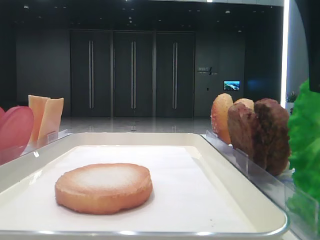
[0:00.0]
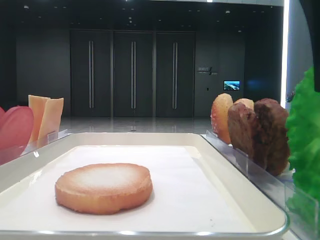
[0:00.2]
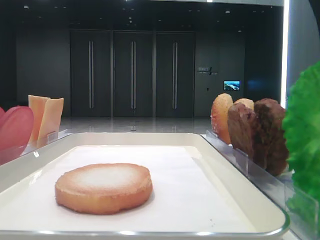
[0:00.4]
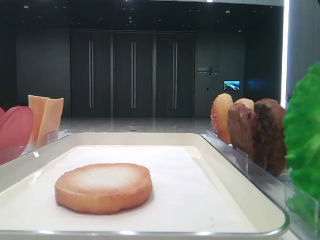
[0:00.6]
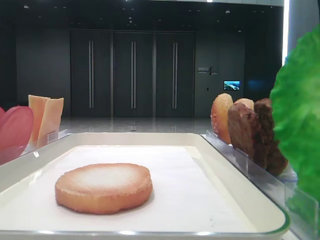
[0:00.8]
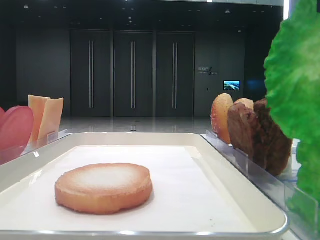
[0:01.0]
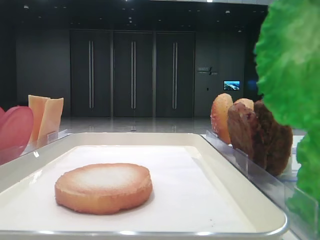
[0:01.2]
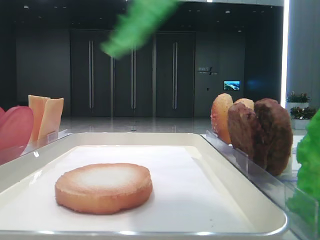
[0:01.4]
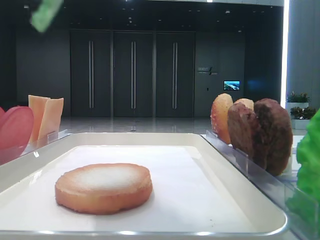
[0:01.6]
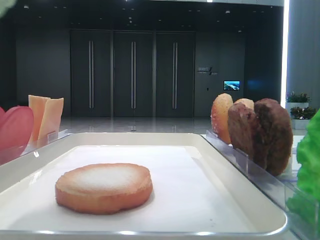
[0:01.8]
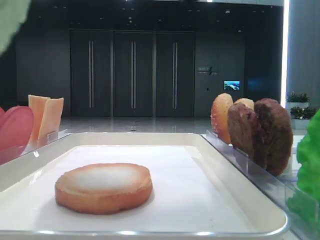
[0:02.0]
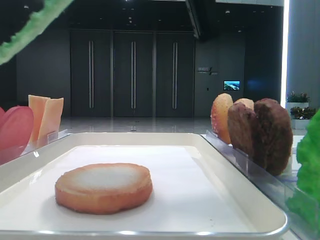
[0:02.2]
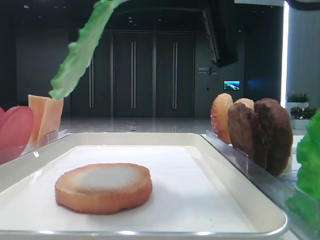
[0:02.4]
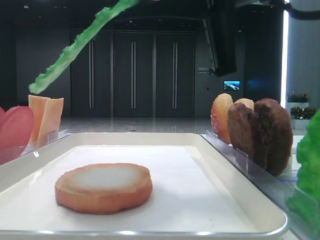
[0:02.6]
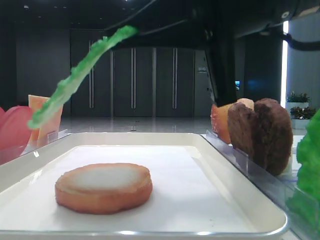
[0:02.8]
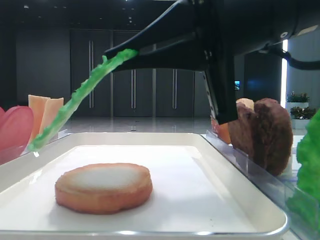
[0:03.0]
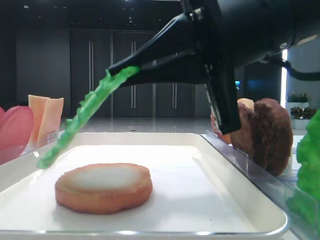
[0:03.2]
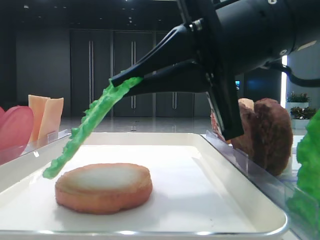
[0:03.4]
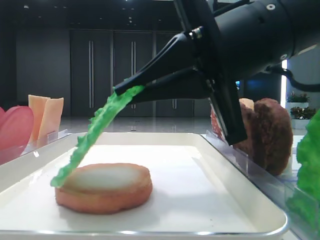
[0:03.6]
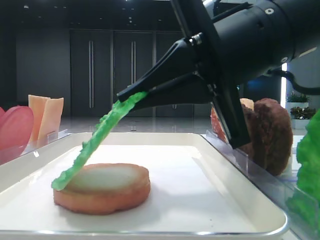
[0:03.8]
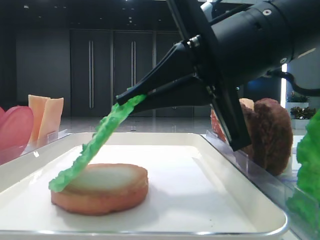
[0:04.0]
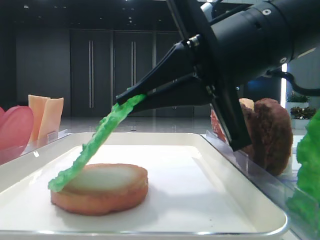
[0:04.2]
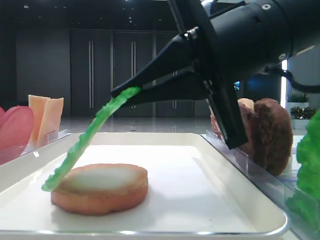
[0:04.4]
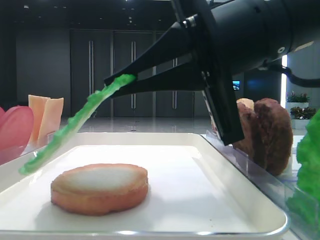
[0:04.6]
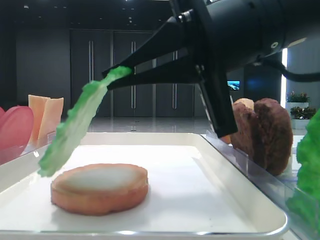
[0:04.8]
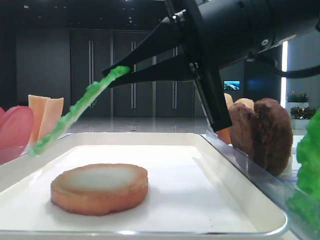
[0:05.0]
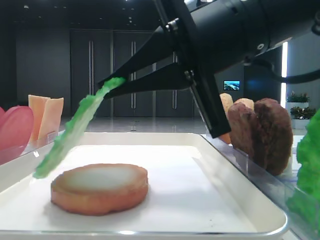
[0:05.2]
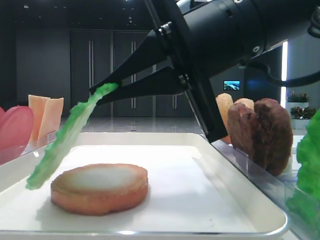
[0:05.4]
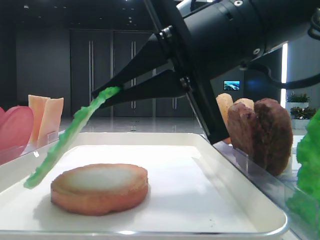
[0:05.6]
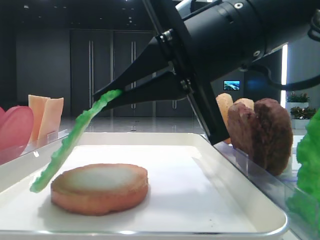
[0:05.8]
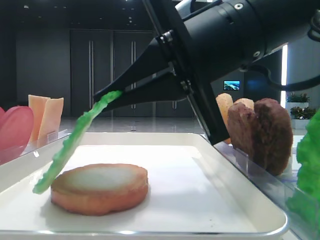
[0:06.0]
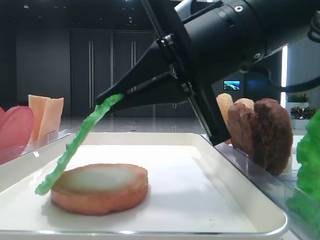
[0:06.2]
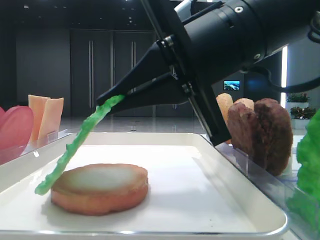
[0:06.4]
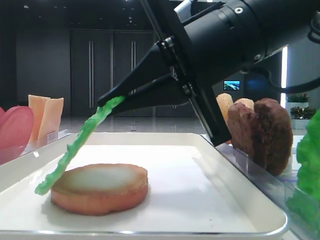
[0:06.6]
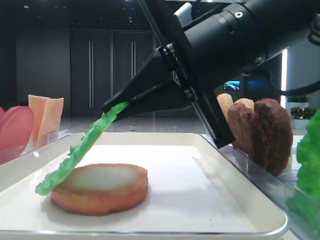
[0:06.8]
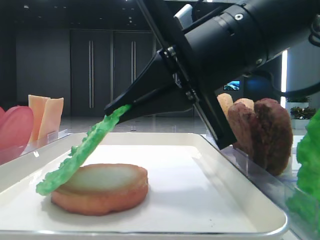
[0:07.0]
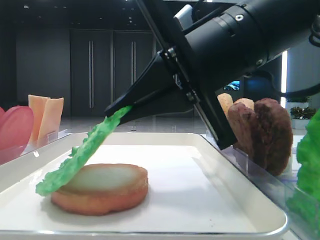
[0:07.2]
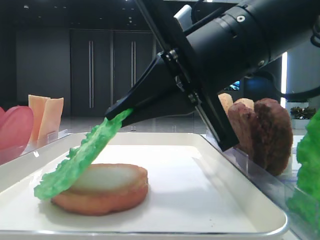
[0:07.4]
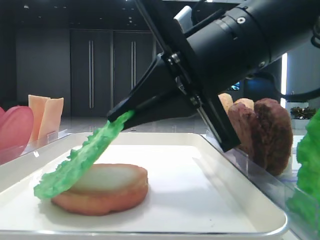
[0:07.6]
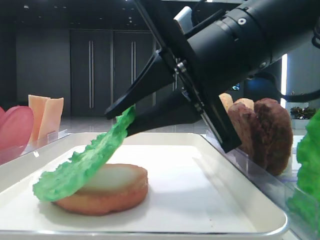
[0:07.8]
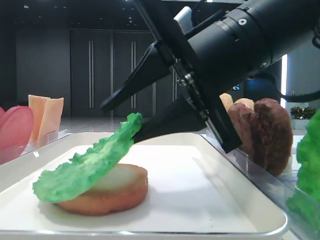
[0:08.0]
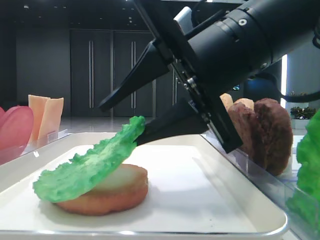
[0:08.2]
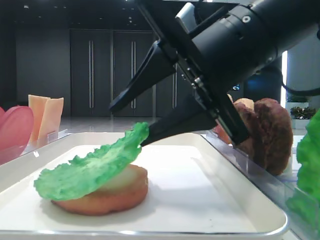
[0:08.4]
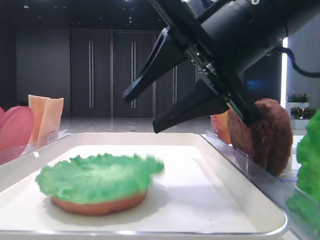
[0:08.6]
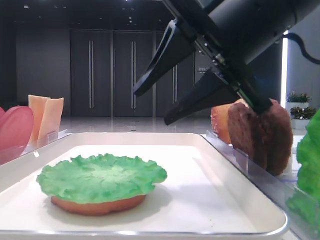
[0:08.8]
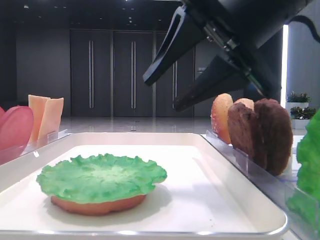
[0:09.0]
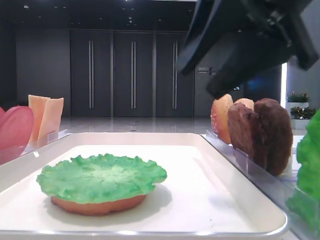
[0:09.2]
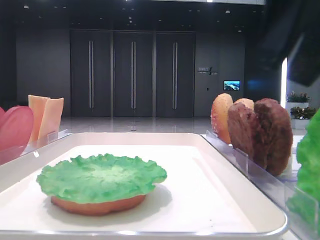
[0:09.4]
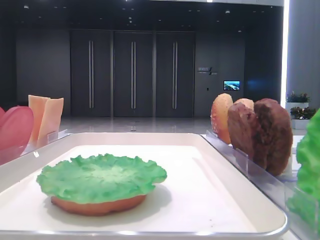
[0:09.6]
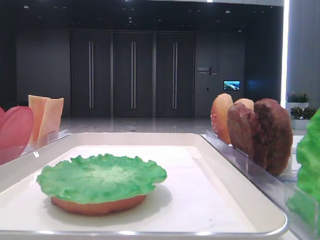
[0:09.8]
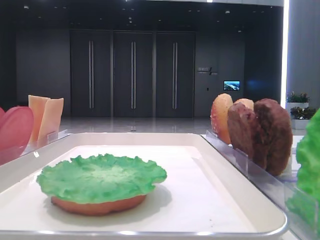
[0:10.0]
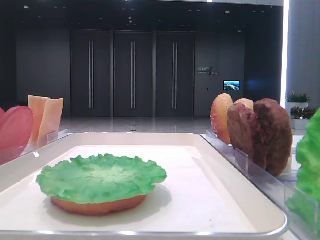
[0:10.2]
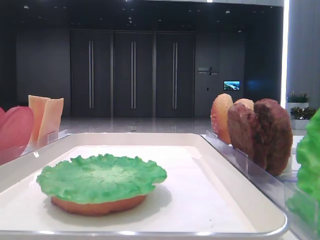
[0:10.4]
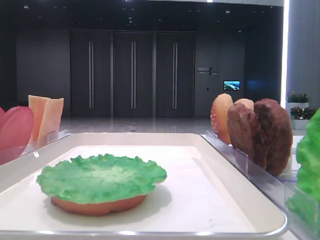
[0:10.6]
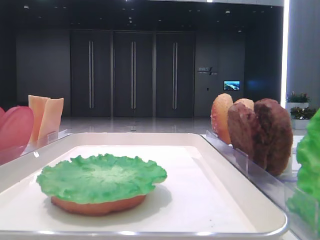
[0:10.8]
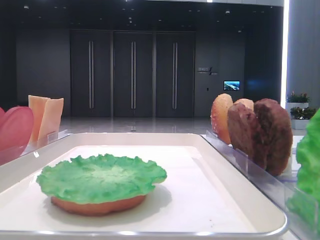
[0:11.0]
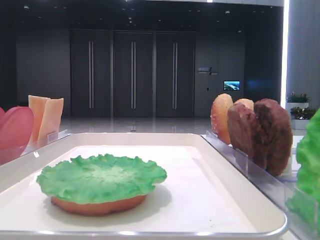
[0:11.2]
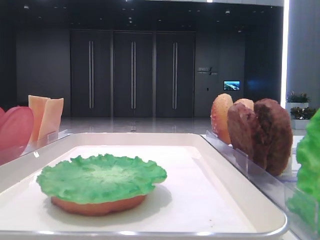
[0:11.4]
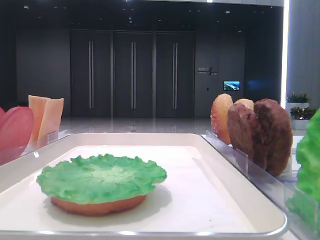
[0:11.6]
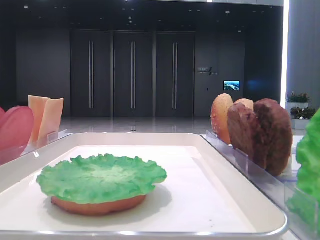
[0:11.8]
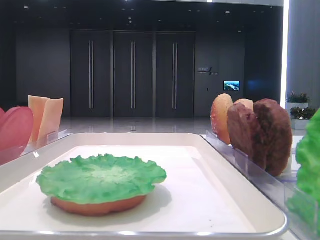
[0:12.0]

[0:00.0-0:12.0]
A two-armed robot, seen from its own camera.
Step, 0:00.6 to 0:08.4: Place the lettuce leaf on the bottom bread with the right hand.
0:00.0 to 0:01.6: The right gripper is displaced upward and to the left by about 10 cm, and closes.
0:01.6 to 0:03.0: The right gripper is displaced downward and forward by roughly 15 cm.
0:03.0 to 0:07.6: There are only small adjustments of the grippers.
0:07.6 to 0:09.0: The right gripper shifts by roughly 5 cm, and opens its fingers.
0:09.0 to 0:10.4: The right gripper goes approximately 30 cm to the right, backward and upward.

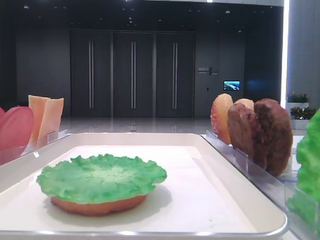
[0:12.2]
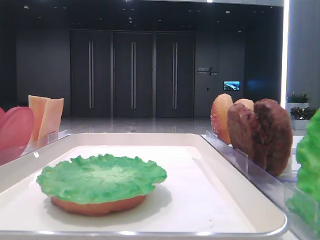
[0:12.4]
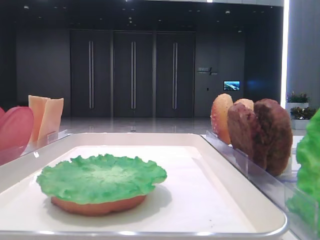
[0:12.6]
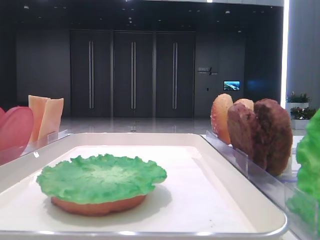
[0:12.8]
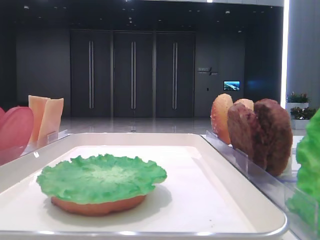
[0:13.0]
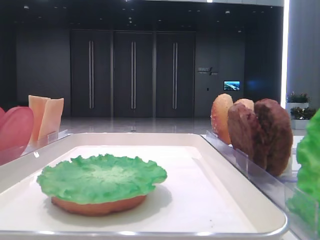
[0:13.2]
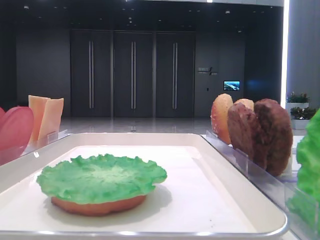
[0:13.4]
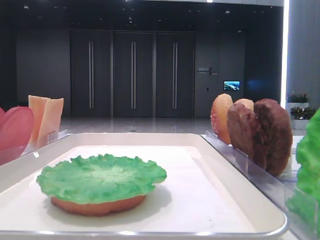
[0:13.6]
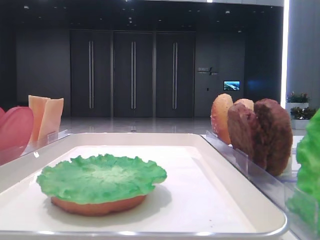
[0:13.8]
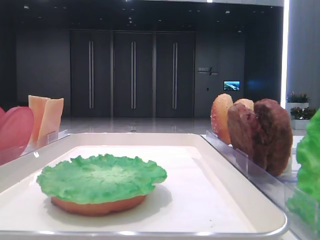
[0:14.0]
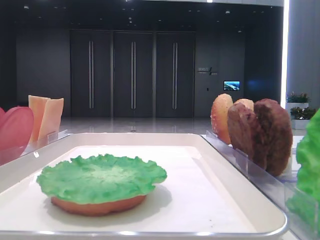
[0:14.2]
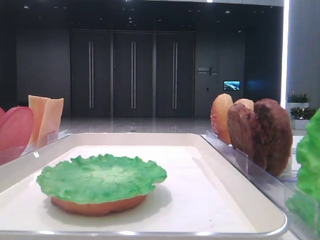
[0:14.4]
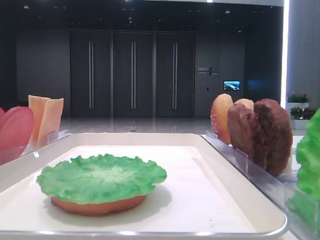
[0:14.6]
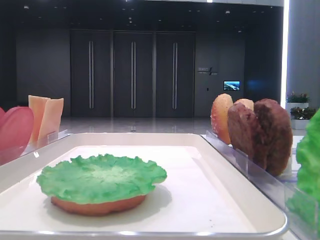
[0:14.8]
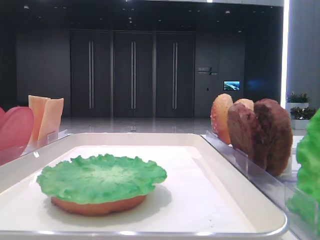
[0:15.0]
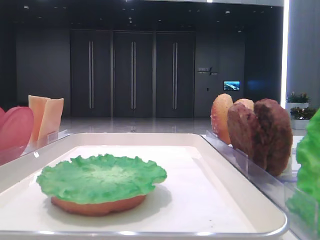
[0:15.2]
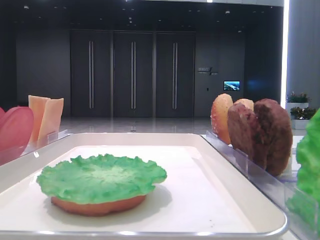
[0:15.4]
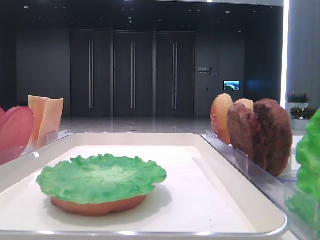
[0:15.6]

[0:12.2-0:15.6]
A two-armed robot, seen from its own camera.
0:13.8 to 0:15.6: Both grippers stay put.

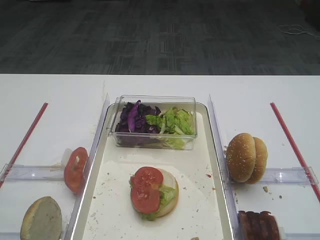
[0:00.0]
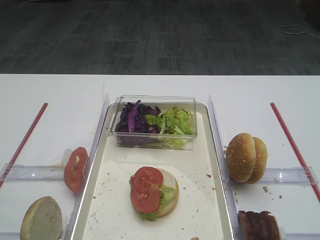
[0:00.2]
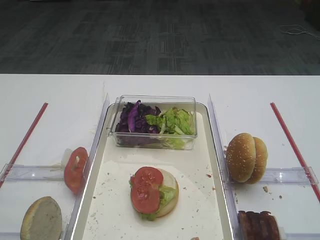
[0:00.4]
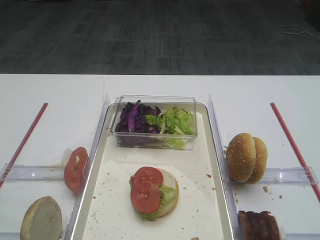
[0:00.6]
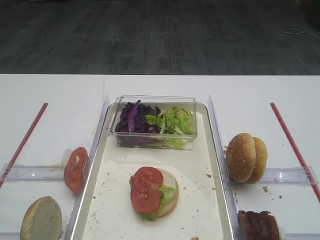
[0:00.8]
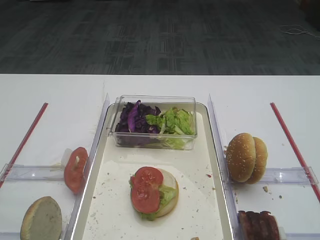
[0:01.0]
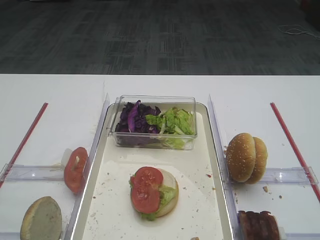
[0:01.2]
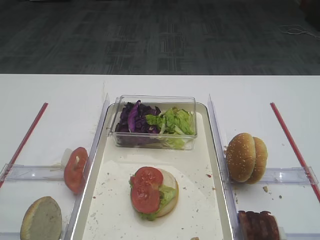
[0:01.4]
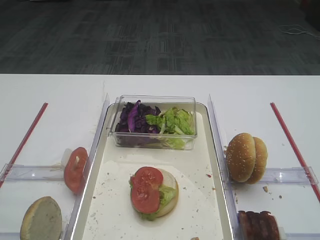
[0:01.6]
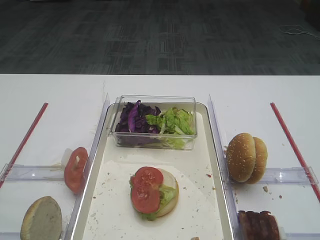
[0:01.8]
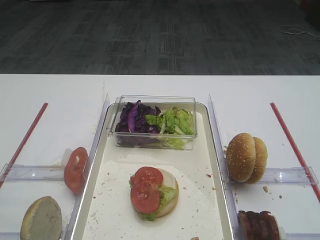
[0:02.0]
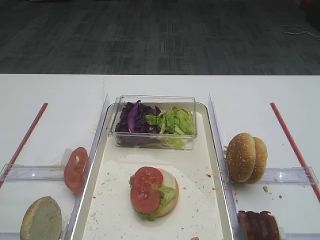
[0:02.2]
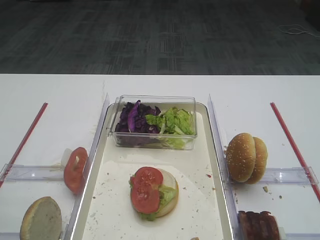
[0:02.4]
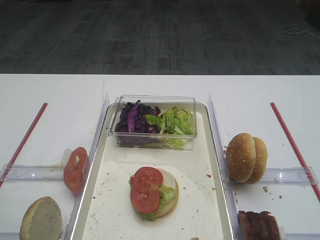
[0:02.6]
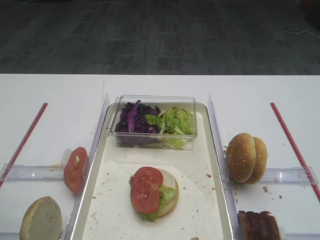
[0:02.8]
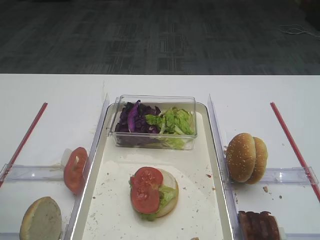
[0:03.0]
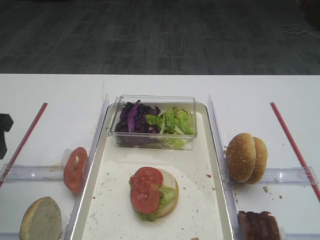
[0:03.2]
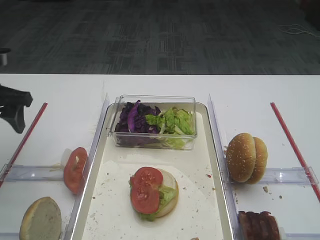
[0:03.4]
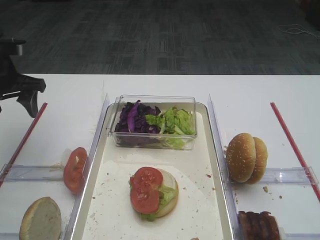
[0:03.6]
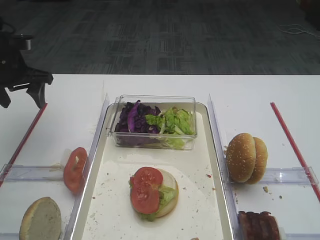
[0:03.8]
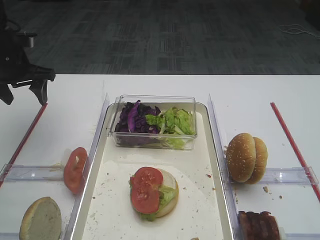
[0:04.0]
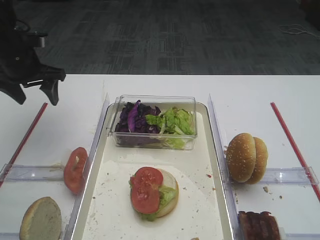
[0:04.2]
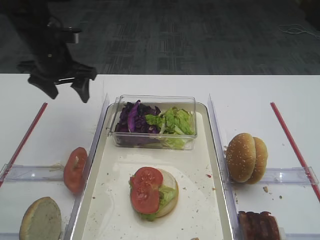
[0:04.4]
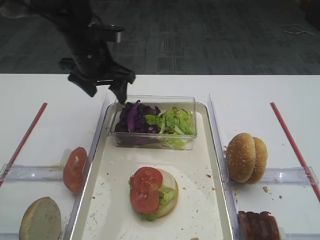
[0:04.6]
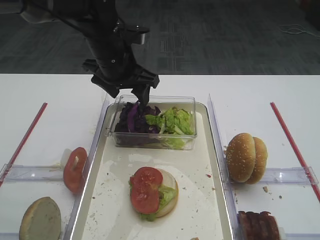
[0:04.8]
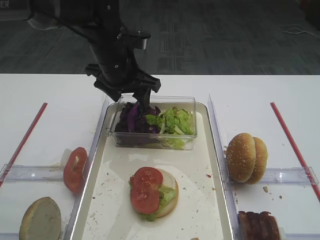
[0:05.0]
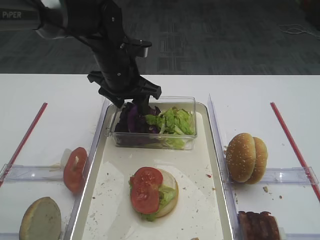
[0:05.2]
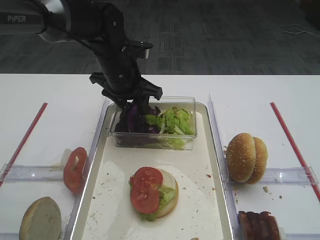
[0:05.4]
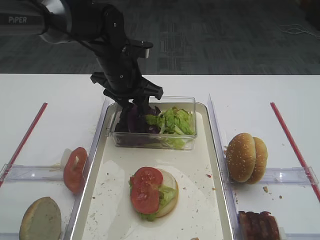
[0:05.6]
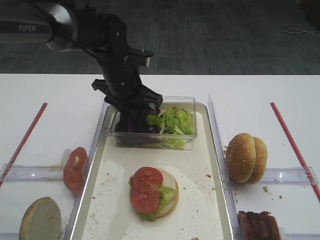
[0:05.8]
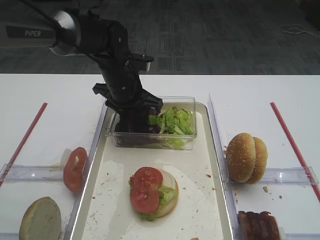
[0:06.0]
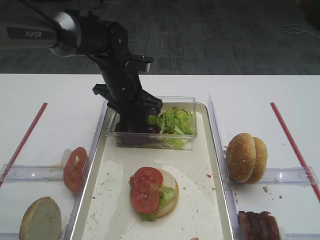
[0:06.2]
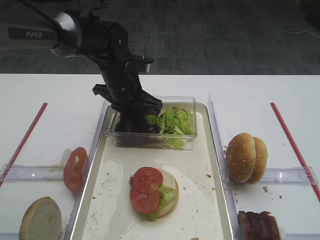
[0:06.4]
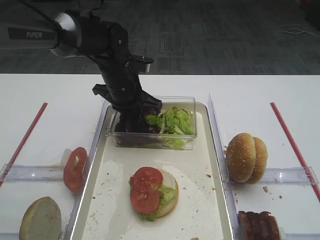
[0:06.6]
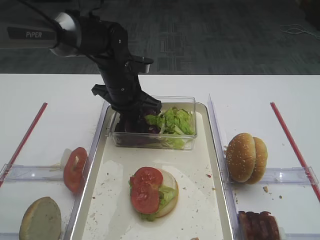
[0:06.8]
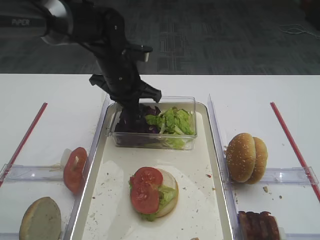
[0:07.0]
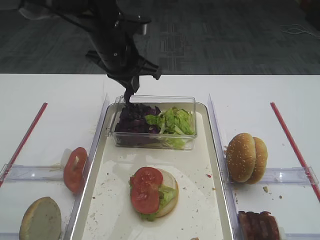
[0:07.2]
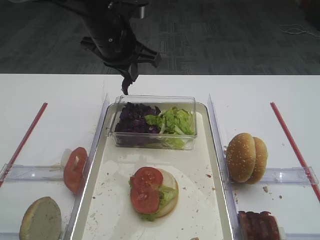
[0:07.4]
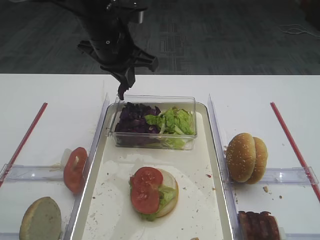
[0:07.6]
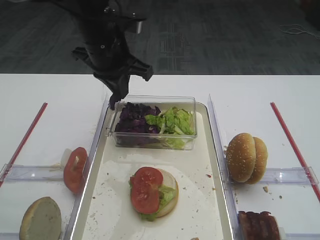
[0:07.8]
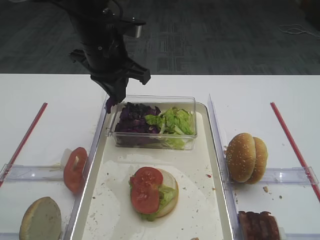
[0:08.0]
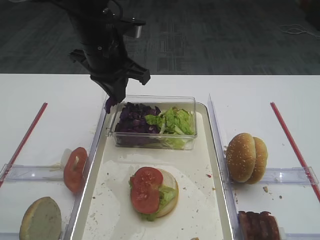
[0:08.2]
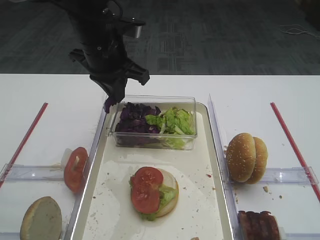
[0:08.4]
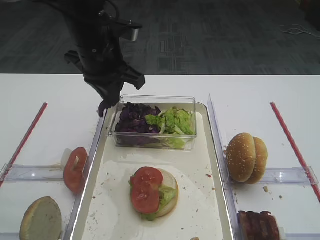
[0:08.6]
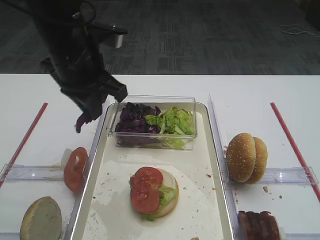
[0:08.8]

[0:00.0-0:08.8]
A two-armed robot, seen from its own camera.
Step, 0:00.0 to 0:07.4: Pick up the purple cabbage with the left gripper.
0:03.0 to 0:04.4: The left gripper is displaced forward by about 25 cm.
0:04.4 to 0:05.8: The left gripper shifts some 15 cm to the right.
0:05.8 to 0:07.4: The left gripper heads upward, covering some 10 cm, and closes up.
0:07.4 to 0:08.8: The left gripper heads backward, covering roughly 5 cm.
